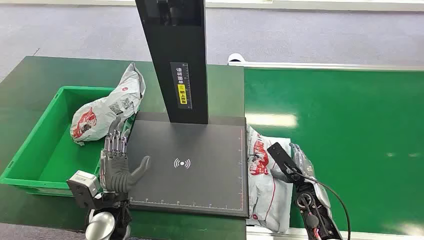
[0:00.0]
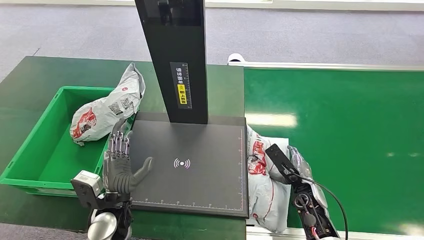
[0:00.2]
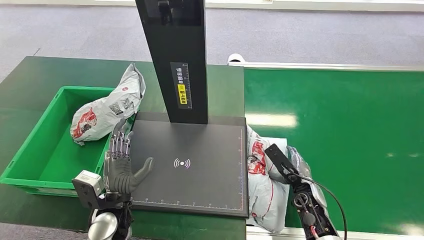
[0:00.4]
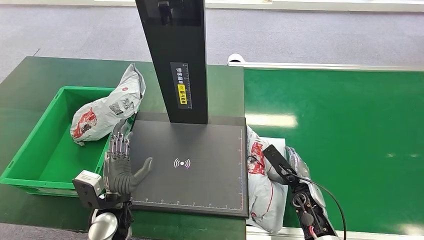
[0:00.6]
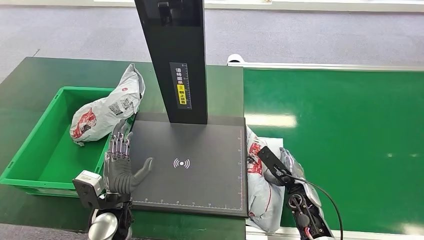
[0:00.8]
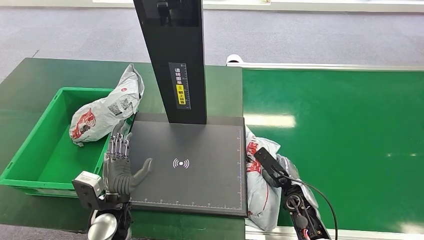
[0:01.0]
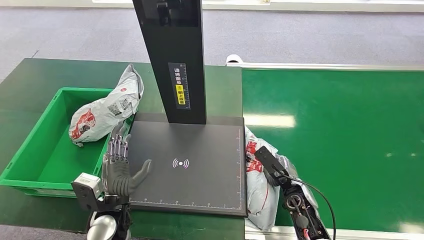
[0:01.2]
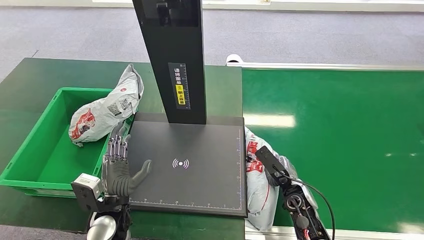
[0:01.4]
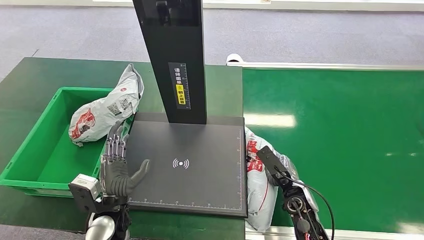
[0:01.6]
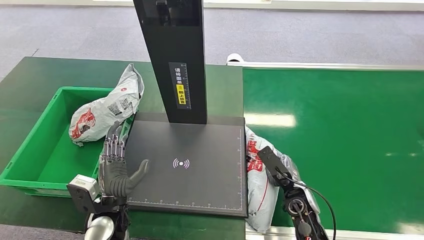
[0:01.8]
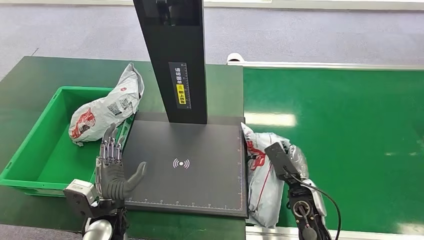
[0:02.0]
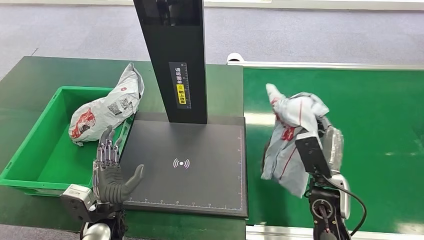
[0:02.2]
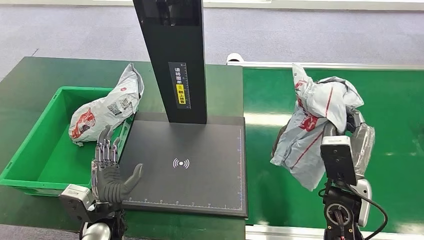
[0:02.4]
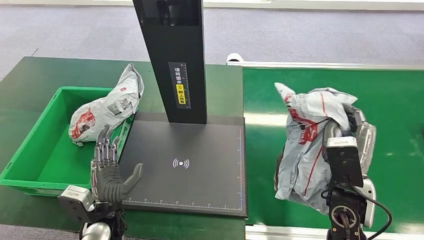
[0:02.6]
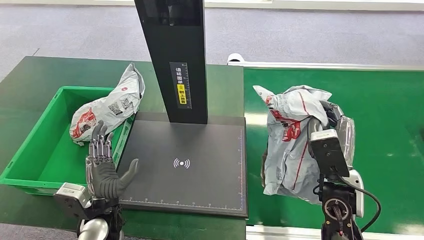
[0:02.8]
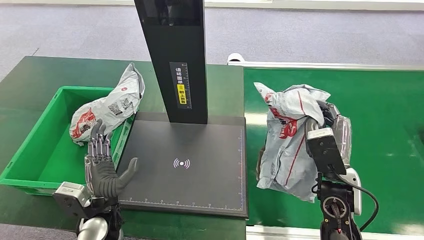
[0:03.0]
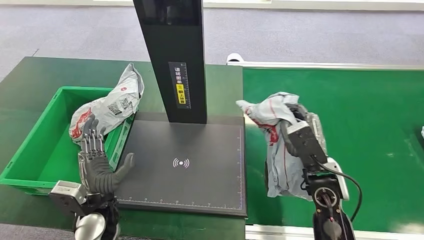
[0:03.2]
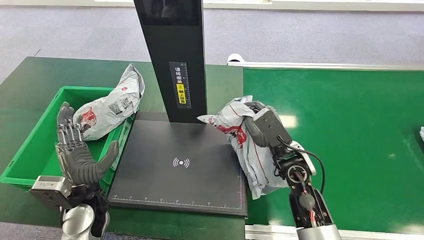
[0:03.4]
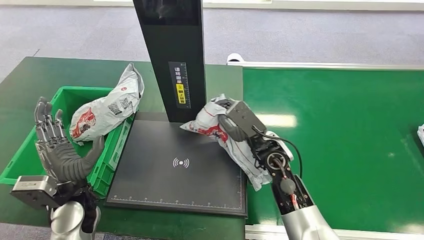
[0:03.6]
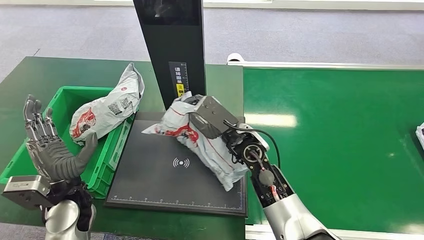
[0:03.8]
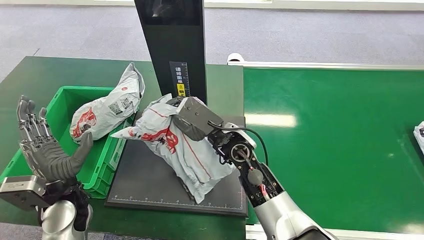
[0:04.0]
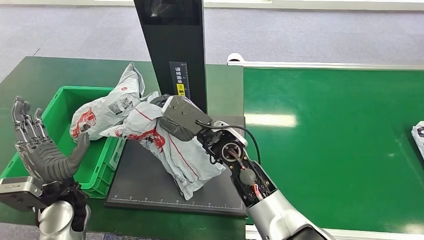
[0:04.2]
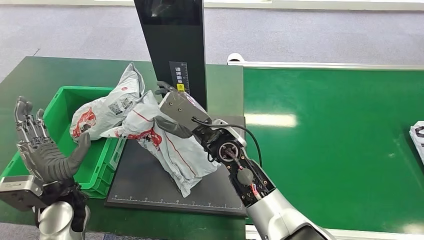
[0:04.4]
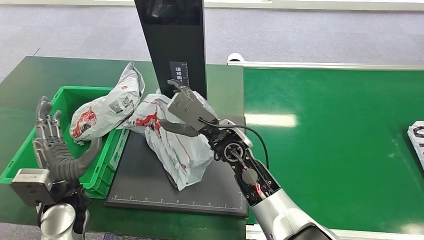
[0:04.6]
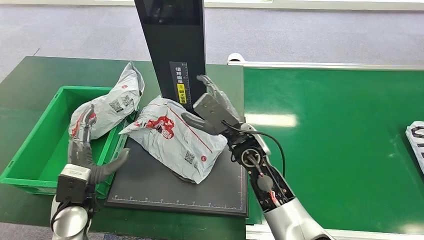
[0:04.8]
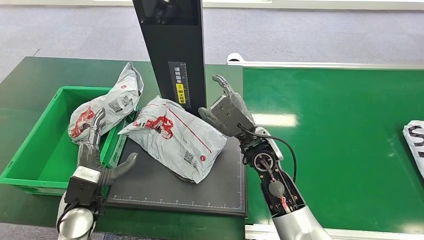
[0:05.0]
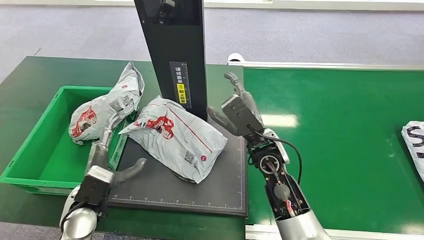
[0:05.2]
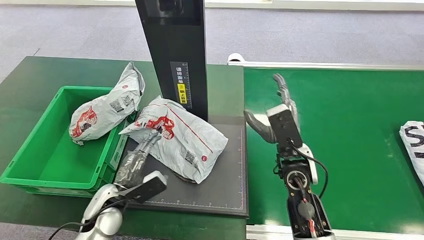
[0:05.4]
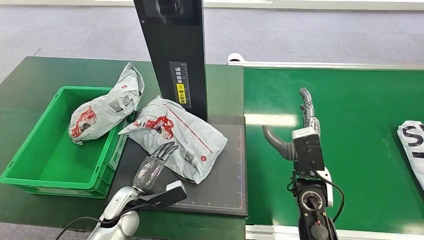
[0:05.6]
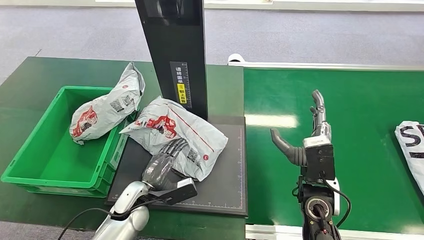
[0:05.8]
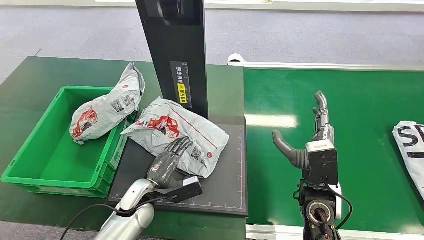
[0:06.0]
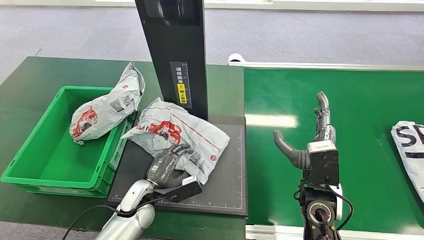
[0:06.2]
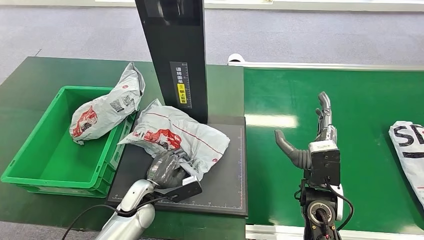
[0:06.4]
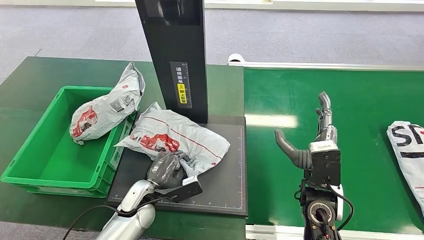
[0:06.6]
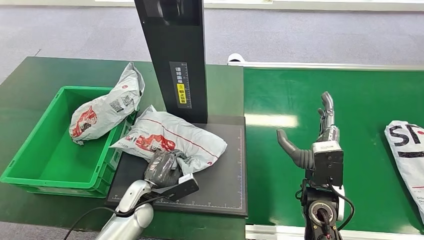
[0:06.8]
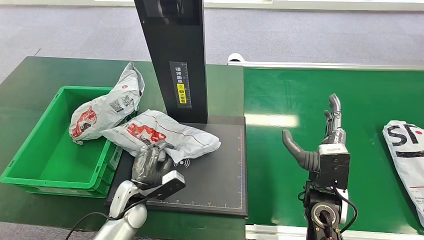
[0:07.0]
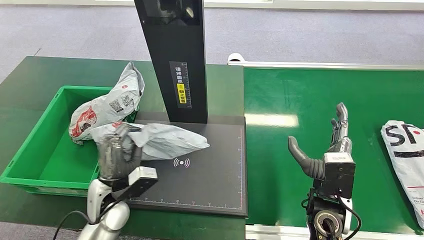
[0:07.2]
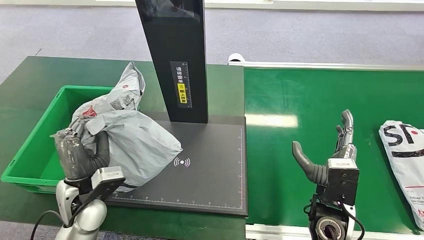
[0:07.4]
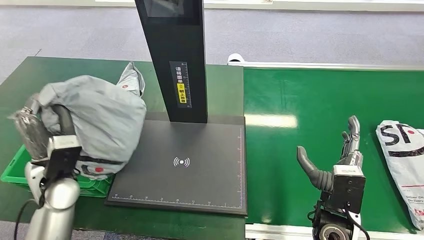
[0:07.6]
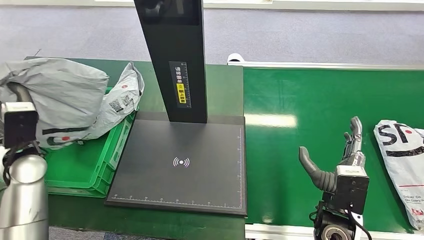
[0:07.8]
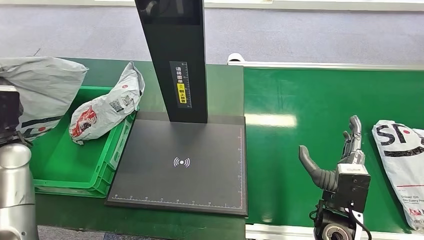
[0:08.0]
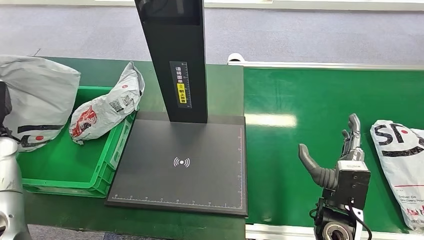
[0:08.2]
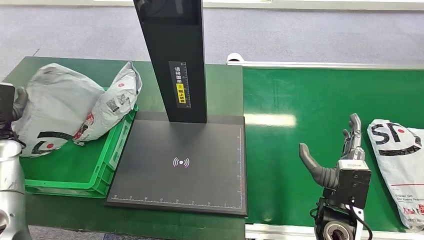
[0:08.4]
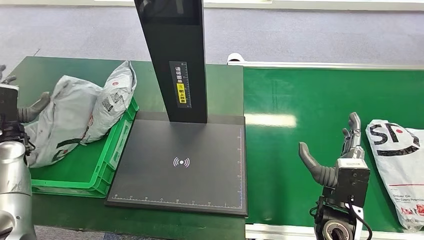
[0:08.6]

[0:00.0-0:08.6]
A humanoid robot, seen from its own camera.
Task of the whole recording: Weigh the package on the weighing device and place it in the left basket.
Step, 0:00.0 to 0:02.2: Pick up the package from the conveyor belt.
Step, 0:02.4 to 0:04.8: Place the package onto the inbound machine.
Step, 0:05.0 to 0:07.2: Pick up the package from the inbound machine.
Step, 0:07.4 to 0:08.6: Place the package into the parcel locker.

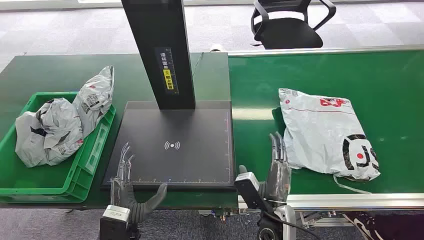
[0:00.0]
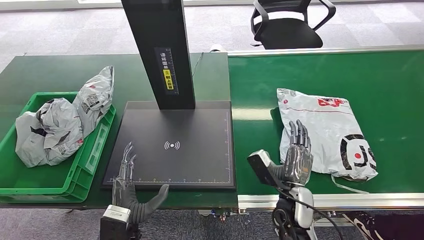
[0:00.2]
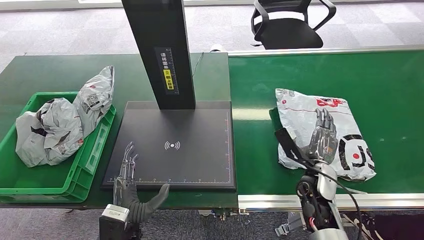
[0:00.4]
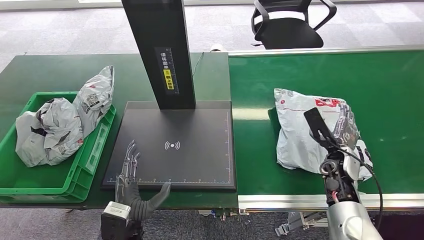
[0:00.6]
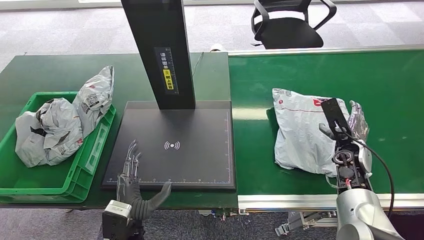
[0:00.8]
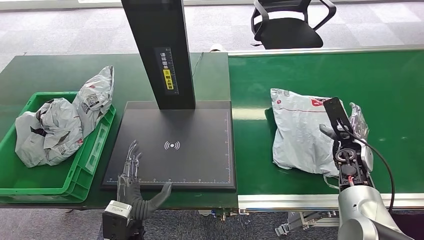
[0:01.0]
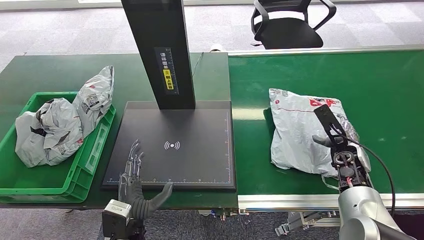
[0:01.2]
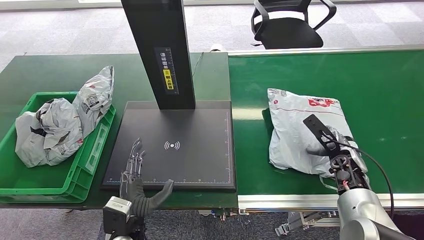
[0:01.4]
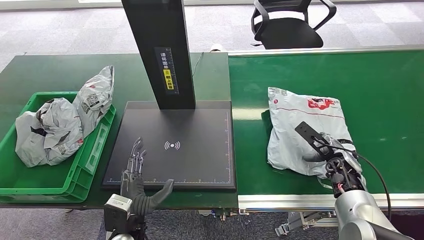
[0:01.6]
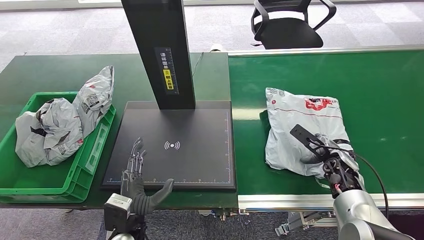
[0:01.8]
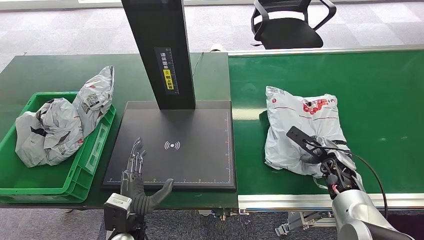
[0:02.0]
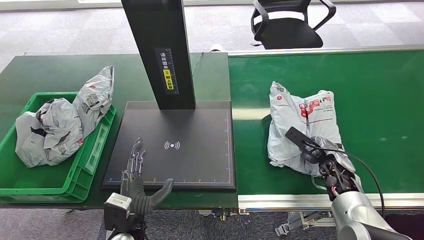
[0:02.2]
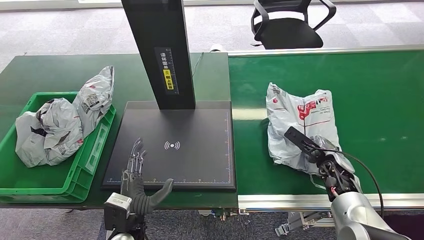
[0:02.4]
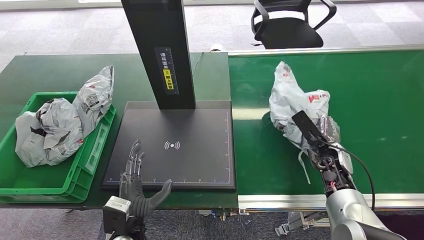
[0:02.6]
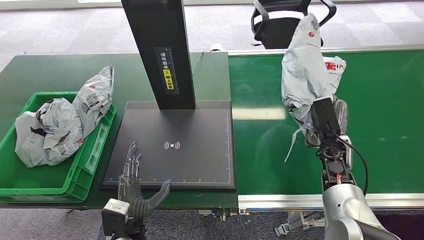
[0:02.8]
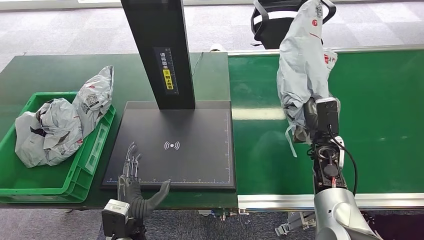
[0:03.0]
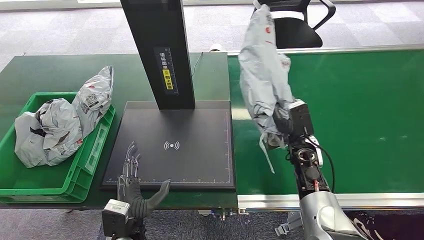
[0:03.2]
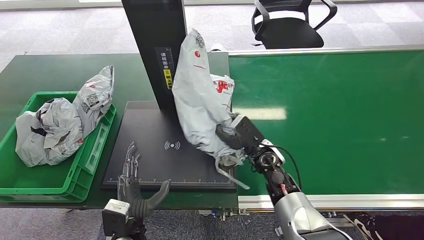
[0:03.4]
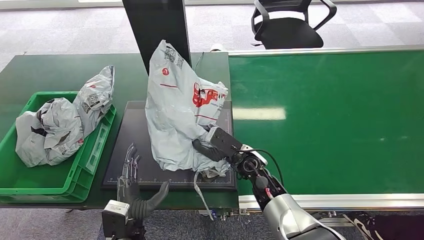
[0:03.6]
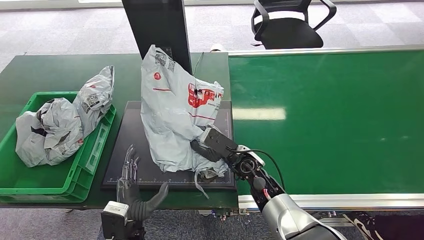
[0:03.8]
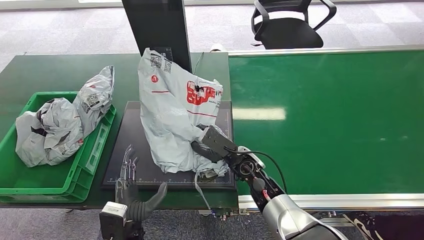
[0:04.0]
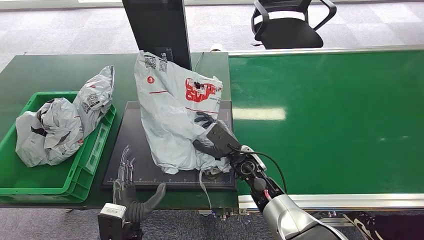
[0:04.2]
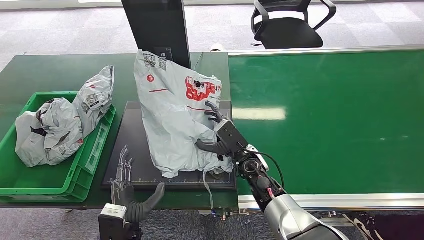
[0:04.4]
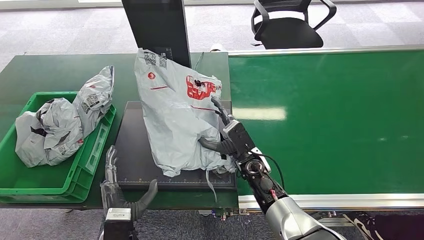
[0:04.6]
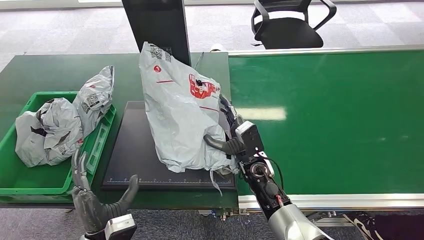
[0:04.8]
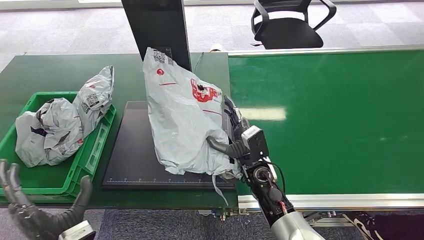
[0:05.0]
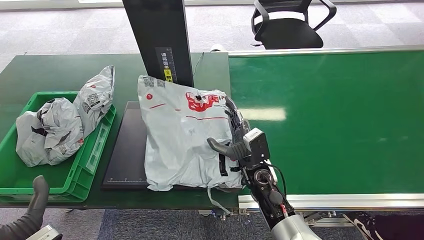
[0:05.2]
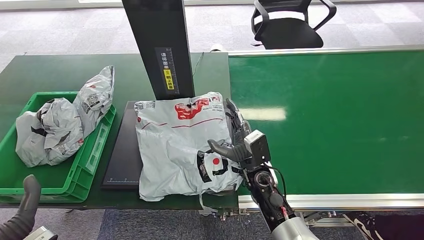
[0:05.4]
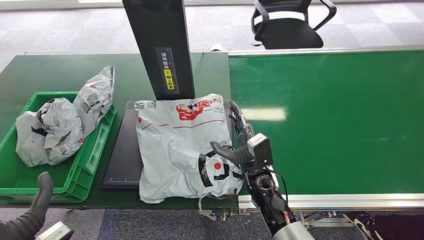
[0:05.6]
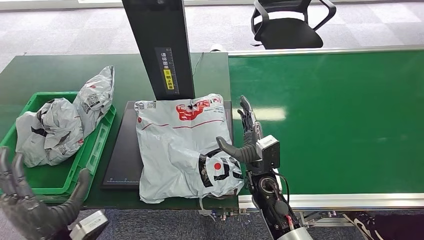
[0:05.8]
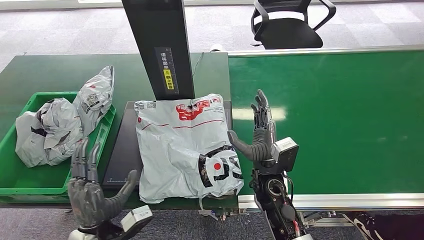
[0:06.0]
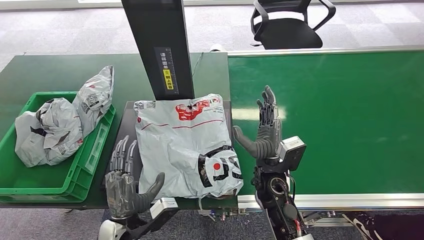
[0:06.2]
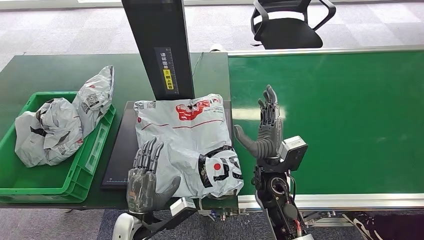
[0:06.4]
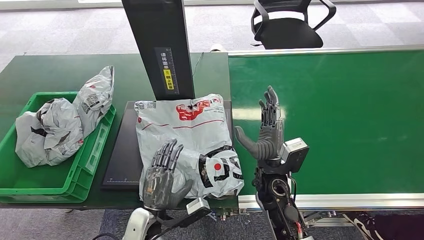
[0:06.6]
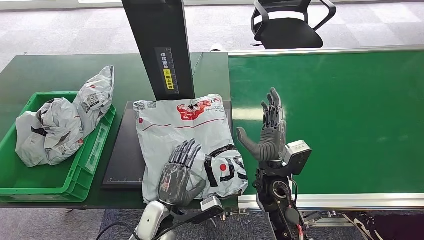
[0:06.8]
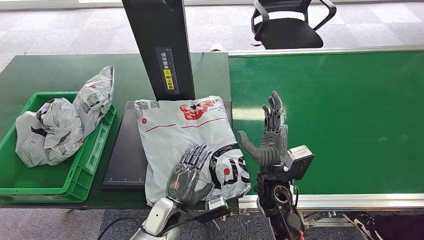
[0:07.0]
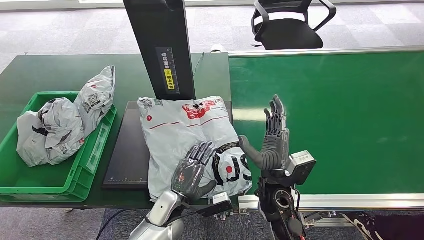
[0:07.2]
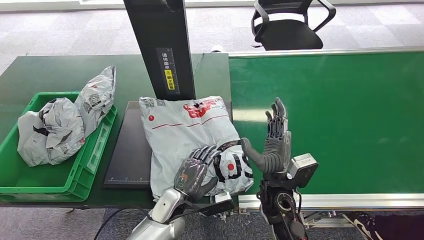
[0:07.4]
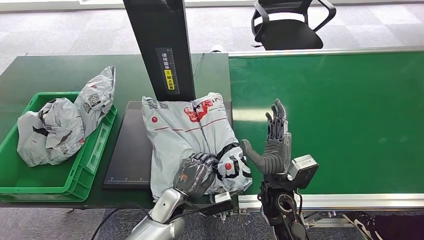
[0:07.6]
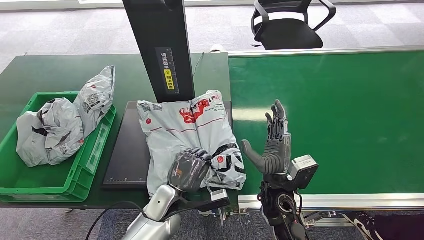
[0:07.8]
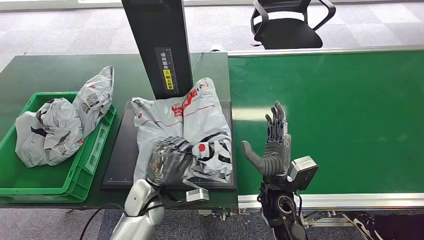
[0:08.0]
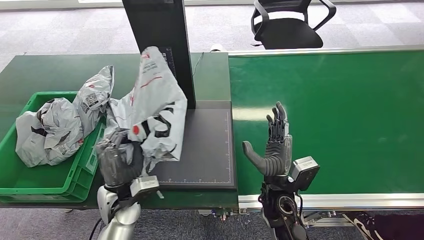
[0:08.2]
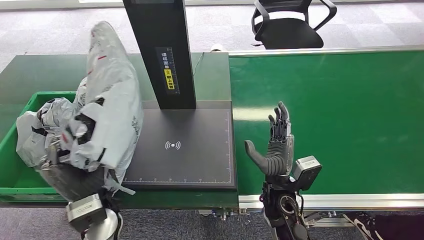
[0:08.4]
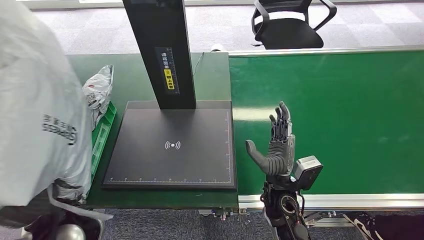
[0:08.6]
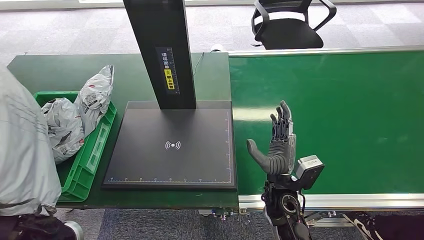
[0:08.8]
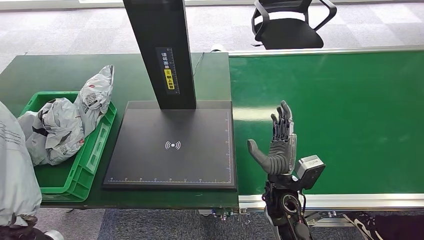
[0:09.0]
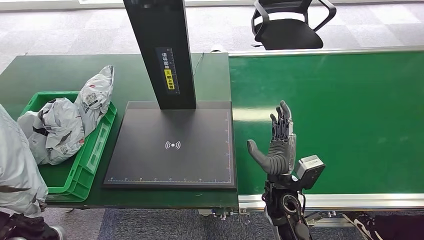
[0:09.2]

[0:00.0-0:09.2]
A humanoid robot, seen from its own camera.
Task of the whole recording: Weigh the package on the weighing device and place it in the left basket.
Step, 0:00.0 to 0:03.0: Pick up the package from the conveyor belt.
Step, 0:03.4 to 0:06.0: Place the package onto the inbound machine.
Step, 0:06.4 to 0:08.6: Pick up the package from the inbound machine.
0:01.6 to 0:03.0: The right hand travels to the left by roughly 5 cm.
0:04.6 to 0:06.2: The left hand moves approximately 15 cm to the left and comes back, while the right hand changes place by roughly 5 cm.
0:07.6 to 0:09.2: The left hand travels to the left and upward by approximately 25 cm.
